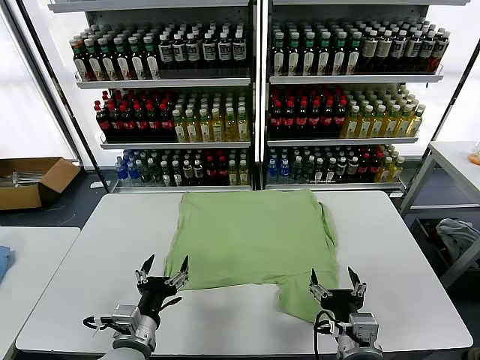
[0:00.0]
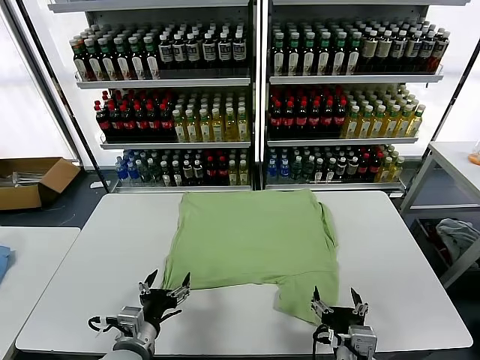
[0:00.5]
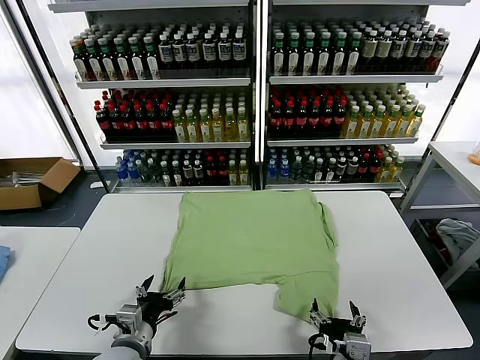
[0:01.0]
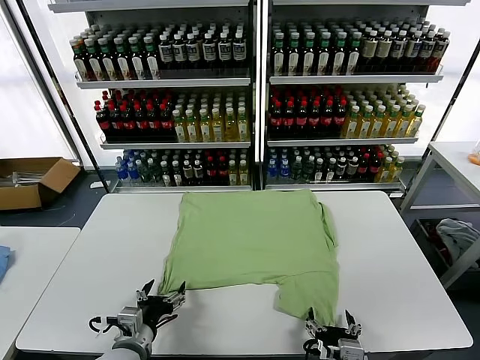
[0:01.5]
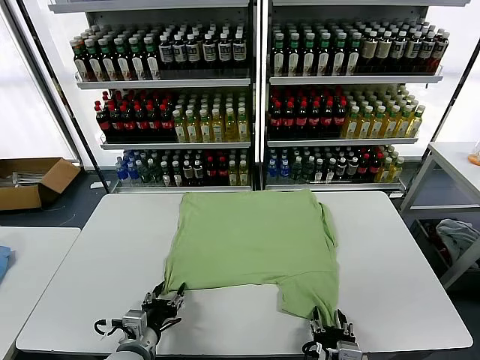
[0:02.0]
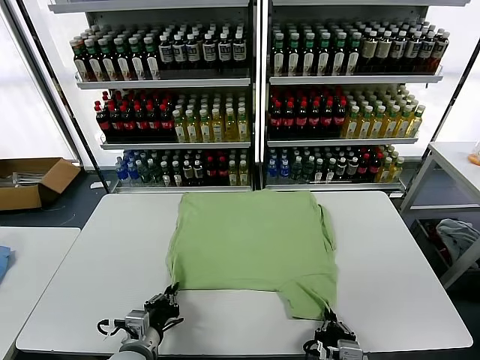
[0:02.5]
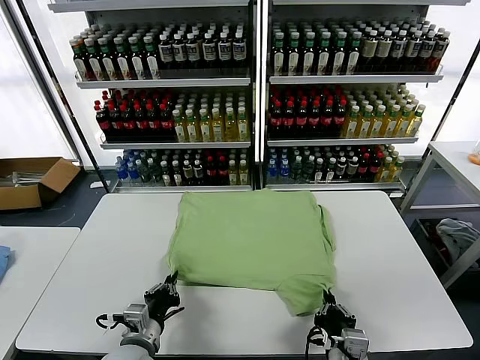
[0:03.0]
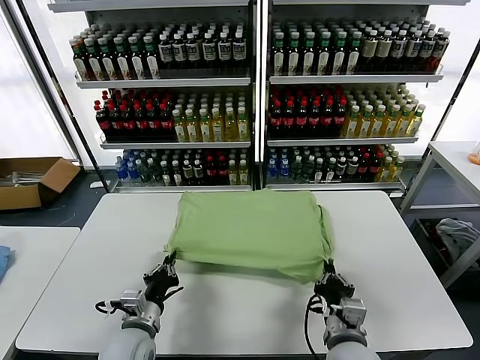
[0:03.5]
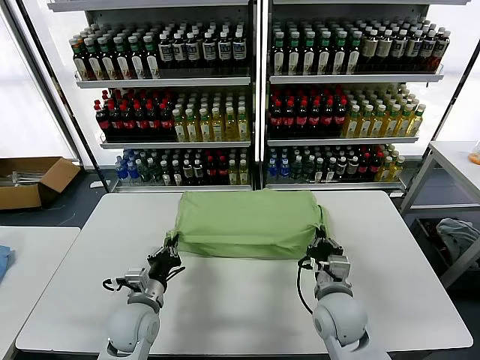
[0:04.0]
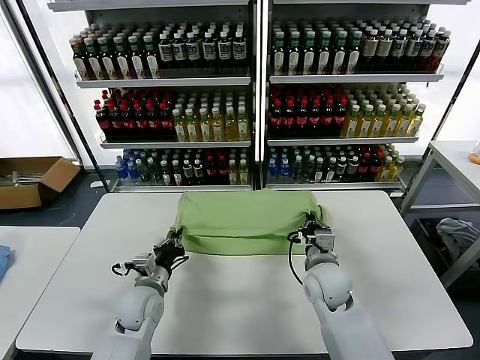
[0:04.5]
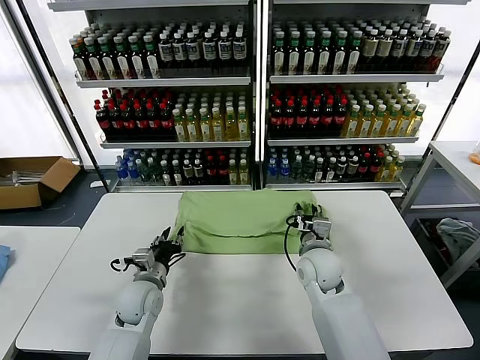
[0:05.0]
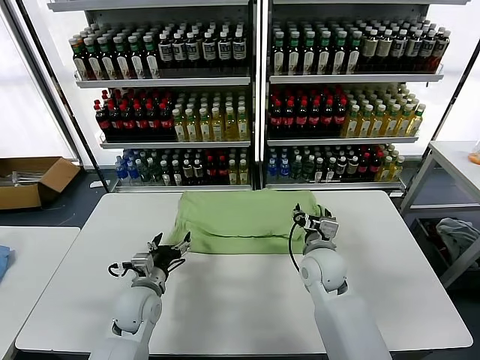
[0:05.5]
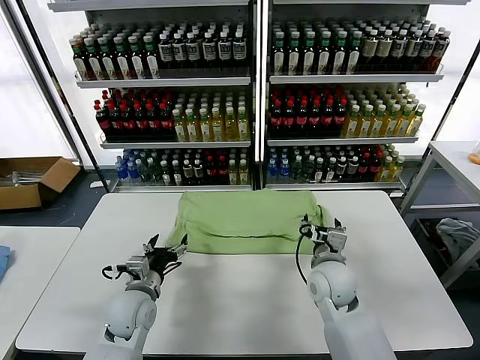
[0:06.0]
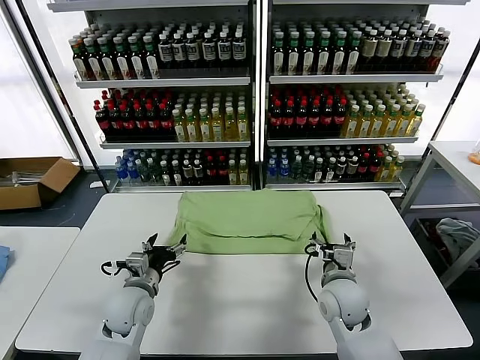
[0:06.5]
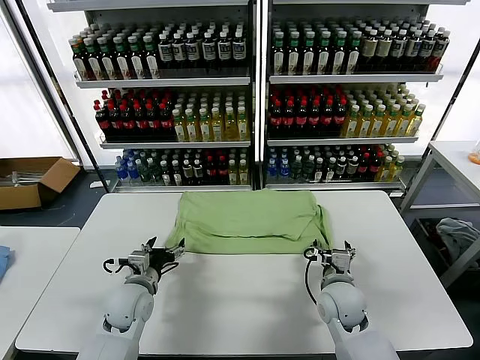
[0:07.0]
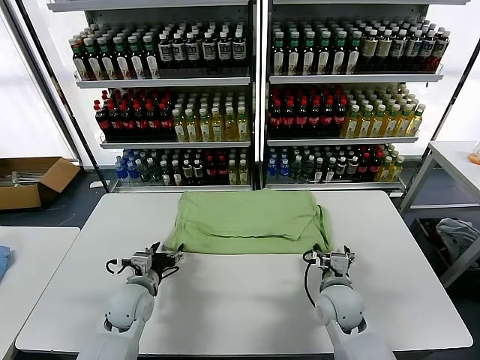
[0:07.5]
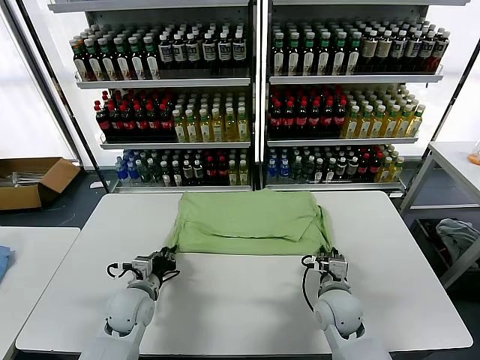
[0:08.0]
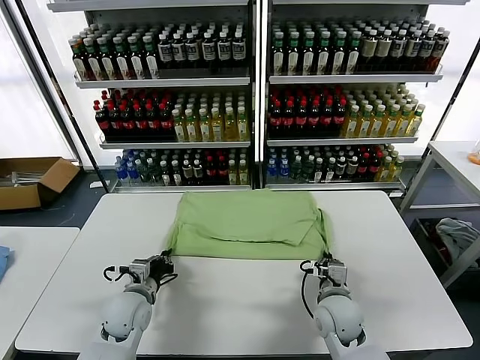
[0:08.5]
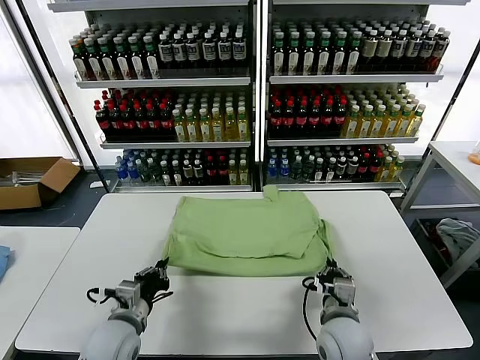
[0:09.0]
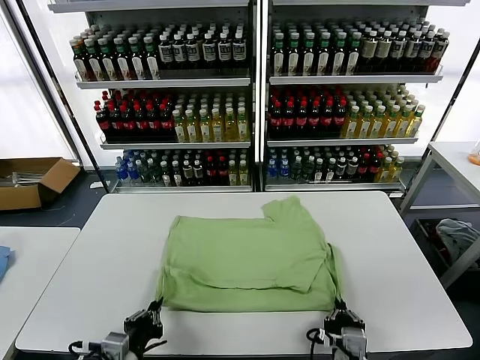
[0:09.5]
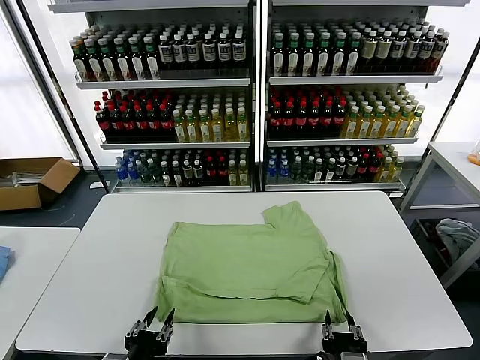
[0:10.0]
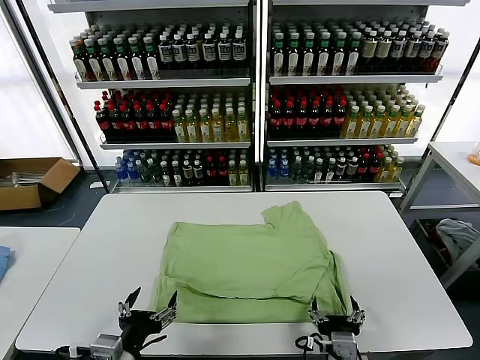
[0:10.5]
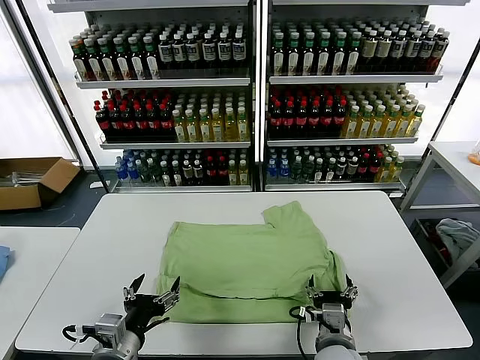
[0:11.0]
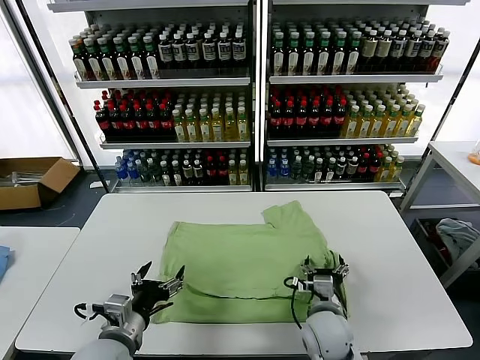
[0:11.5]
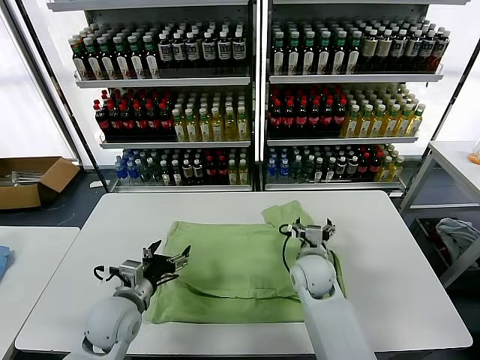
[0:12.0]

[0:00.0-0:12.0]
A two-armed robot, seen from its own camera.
Task of the whole recording: fold and organize the clothes.
Step, 0:00.0 to 0:02.5: use both grippers simultaneously to clamp the lower edge of the clothing fabric.
Step, 0:03.0 to 0:05.0: use both grippers to drag the lower edge of the fabric forward and fold it over the upper edge.
Step, 0:05.5 to 0:10.0: Drag the clothes downward with both gripper.
0:02.0 to 0:04.0: The left gripper moves forward, some 10 cm, and closes its fingers; the right gripper is displaced forward by some 20 cm, and closes its fingers.
0:04.0 to 0:06.0: The left gripper opens. Meanwhile the right gripper opens.
0:06.0 to 0:08.0: The left gripper closes up; the right gripper goes about 5 cm downward, and closes up.
0:08.0 to 0:10.0: The grippers both shift backward by about 20 cm.
0:10.0 to 0:12.0: The left gripper shifts roughly 20 cm forward, and opens, while the right gripper is displaced forward by roughly 30 cm, and opens.

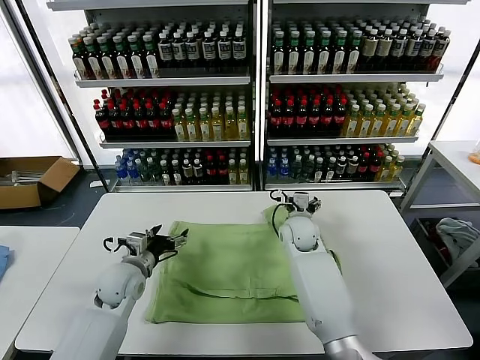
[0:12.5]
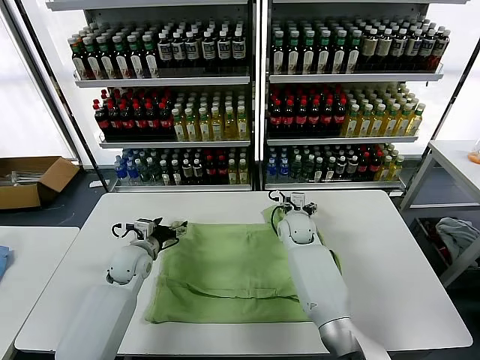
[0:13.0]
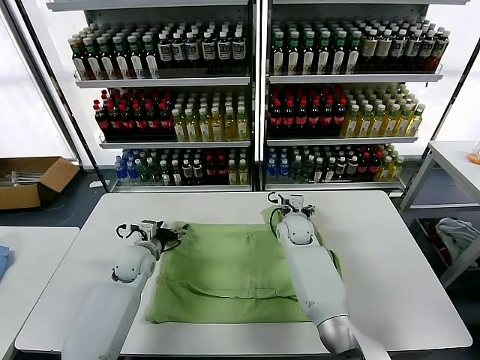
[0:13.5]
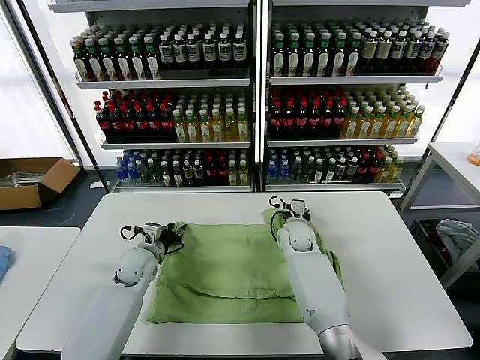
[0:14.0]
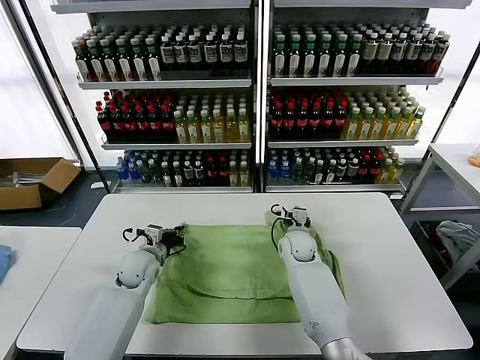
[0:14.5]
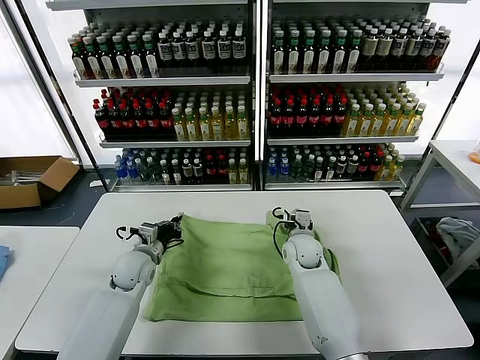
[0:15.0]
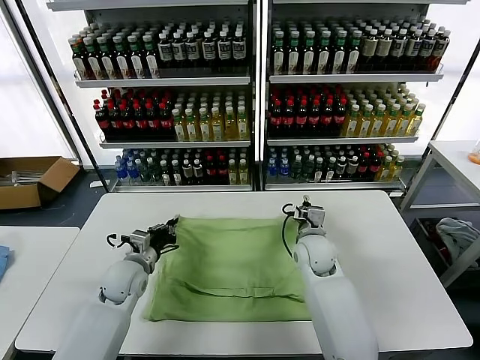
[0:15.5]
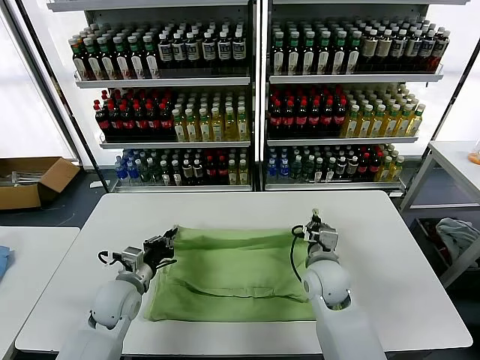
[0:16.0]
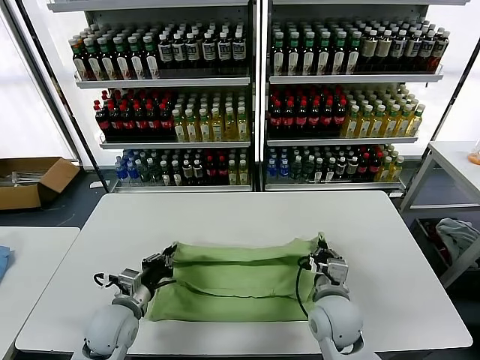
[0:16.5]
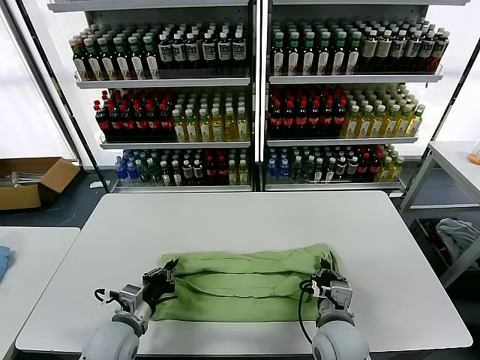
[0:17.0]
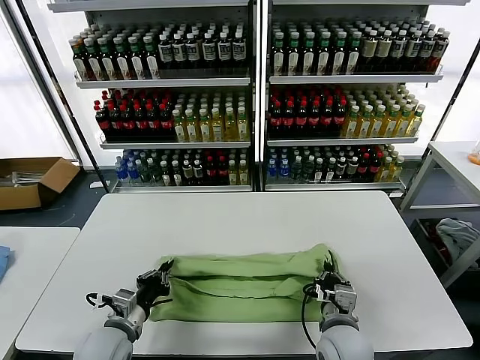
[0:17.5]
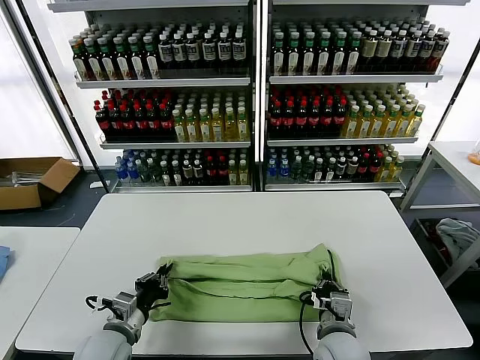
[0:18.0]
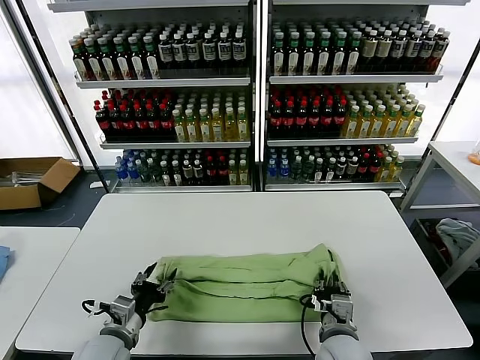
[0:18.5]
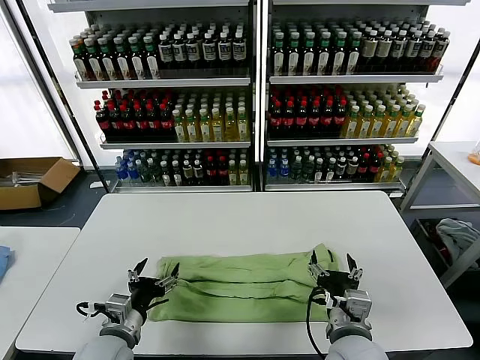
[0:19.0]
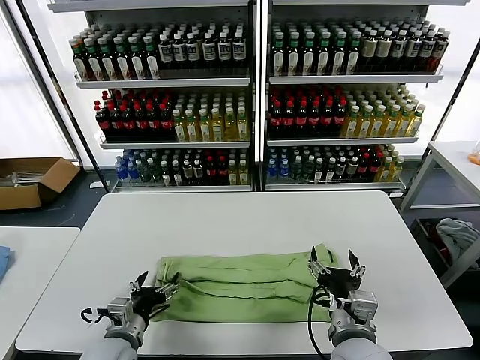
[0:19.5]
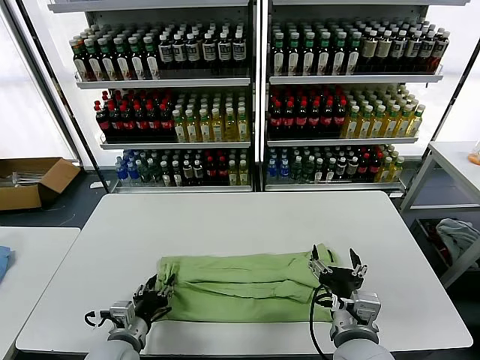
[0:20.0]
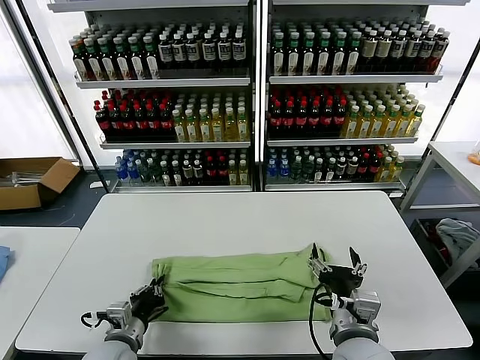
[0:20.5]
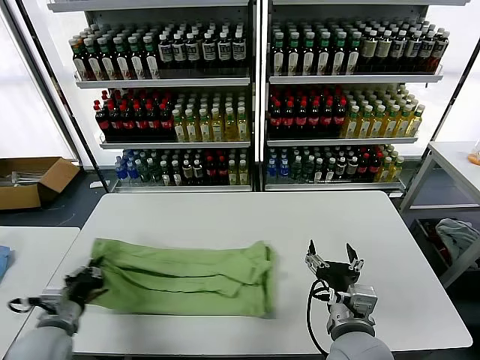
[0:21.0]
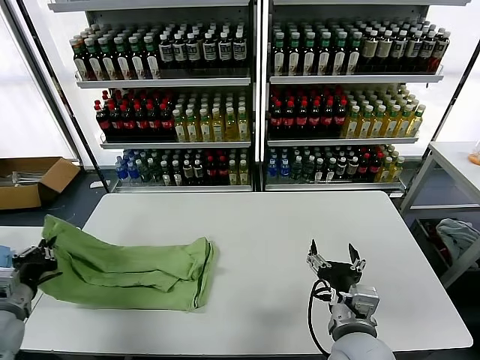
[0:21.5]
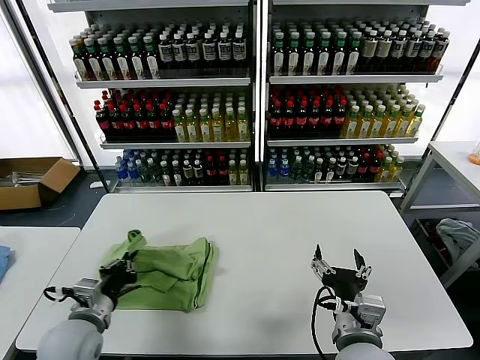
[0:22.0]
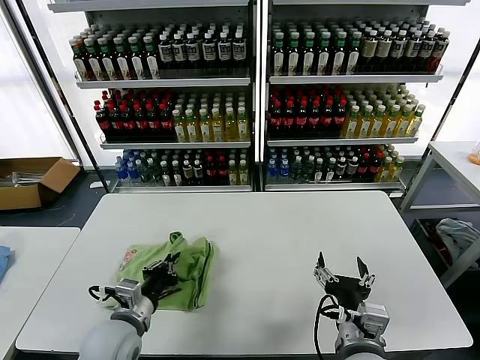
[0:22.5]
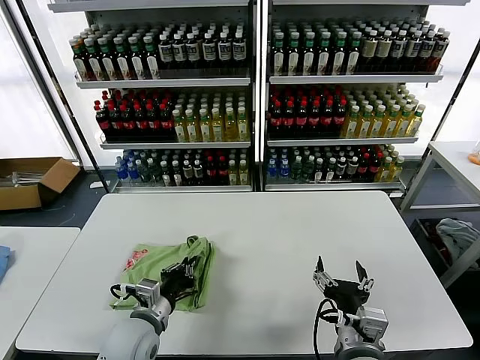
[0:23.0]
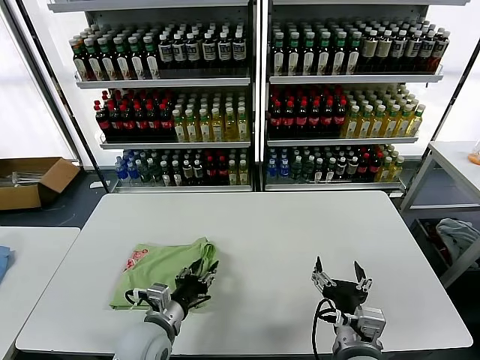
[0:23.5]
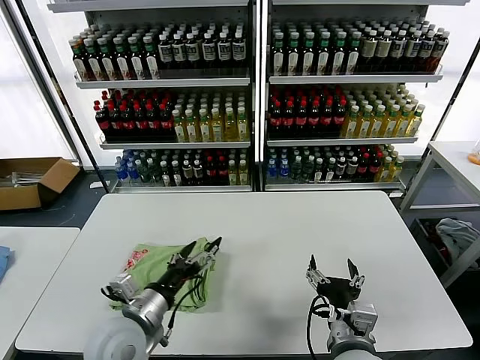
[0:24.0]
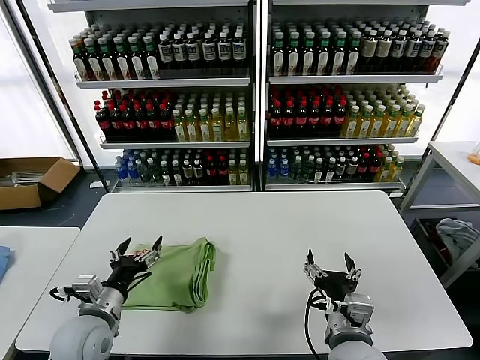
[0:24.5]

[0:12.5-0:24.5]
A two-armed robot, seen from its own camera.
Task of the whole recording: fold and organize the clothes.
Step, 0:12.5 to 0:14.5: use both grippers simultaneously to clamp the upper edge of the clothing fabric.
Step, 0:15.0 to 0:18.5: use both grippers to drag the upper edge of the fabric backward and fold it over the lower edge.
Step, 0:19.0 to 0:20.0: use the left gripper to clamp the left edge of the fabric.
Step, 0:21.0 to 0:23.5: use the left gripper to drag the left edge of the fabric to the left and folds it over the right edge.
0:12.5 to 0:14.5: The right gripper shifts approximately 5 cm downward, and closes; the left gripper travels forward by some 5 cm, and closes its fingers.
0:14.5 to 0:16.5: The two grippers go about 20 cm backward.
0:16.5 to 0:18.5: The two grippers go some 5 cm backward. The right gripper opens; the left gripper opens its fingers.
0:18.5 to 0:20.5: The left gripper closes. The right gripper goes approximately 10 cm upward, and opens.
0:20.5 to 0:22.5: The left gripper moves upward, about 5 cm, and goes to the left and returns, approximately 20 cm each way.
0:22.5 to 0:24.5: The left gripper opens.

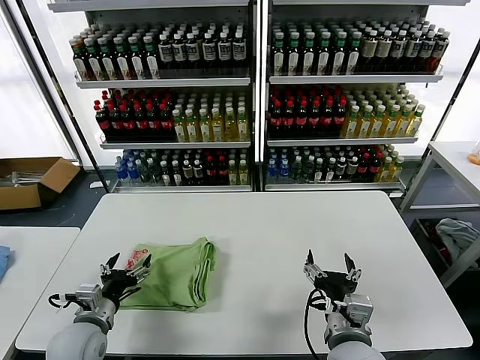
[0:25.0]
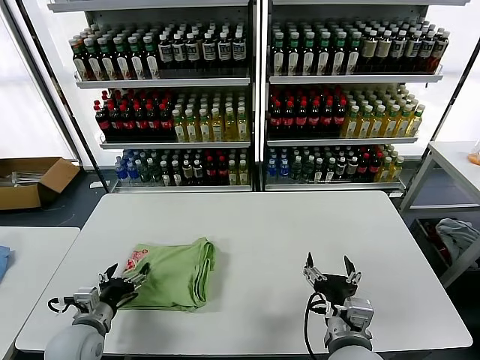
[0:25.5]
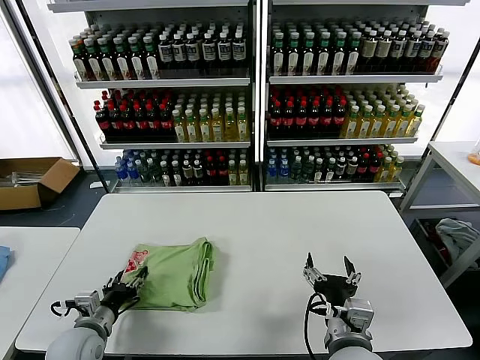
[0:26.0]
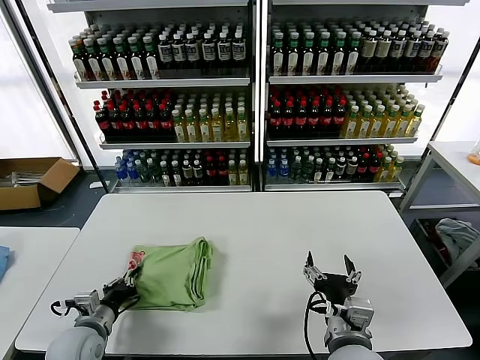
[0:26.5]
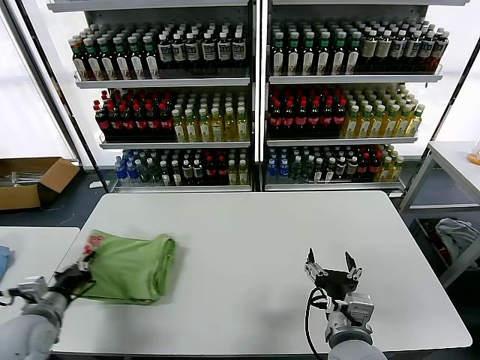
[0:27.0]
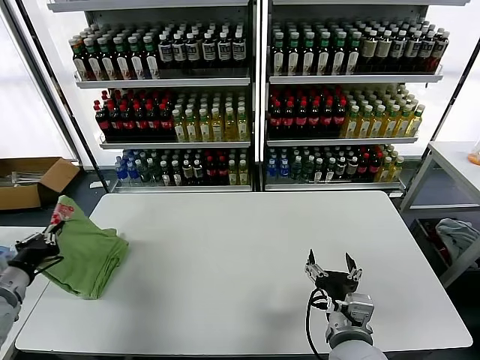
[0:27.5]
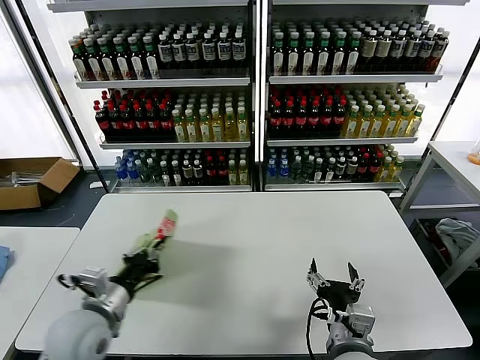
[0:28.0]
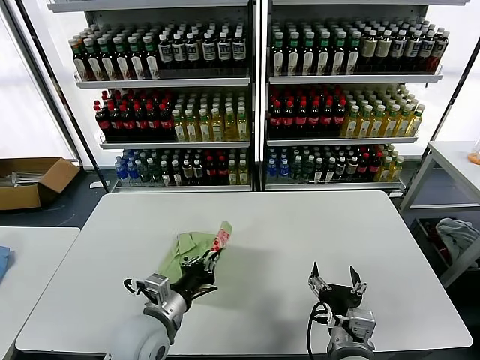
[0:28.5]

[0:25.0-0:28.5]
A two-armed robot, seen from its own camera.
Task of the whole recording: fold and organize the clothes.
0:25.0 to 0:27.0: The left gripper shifts some 10 cm to the left, and closes its fingers.
0:27.0 to 0:28.5: The left gripper is displaced to the right by roughly 20 cm.
